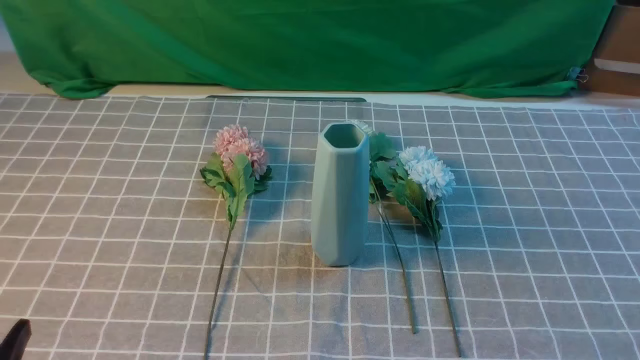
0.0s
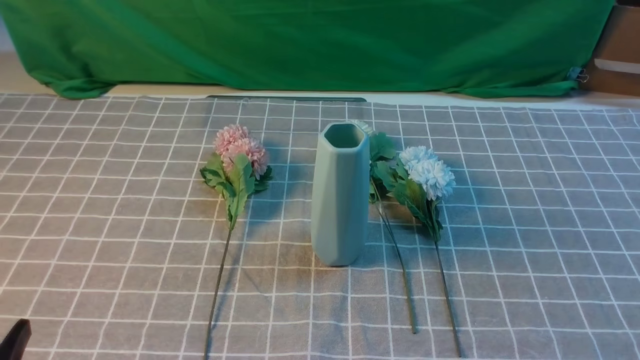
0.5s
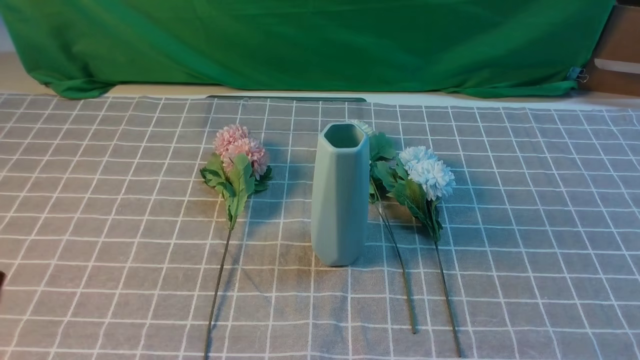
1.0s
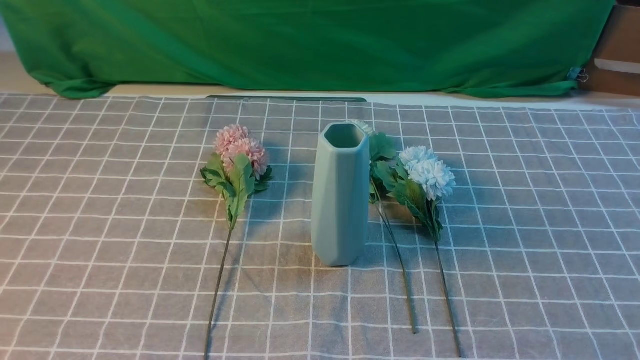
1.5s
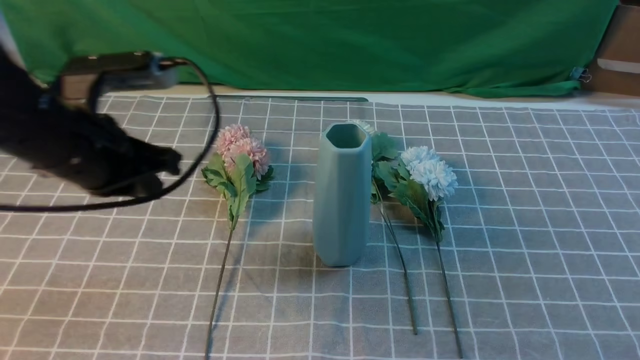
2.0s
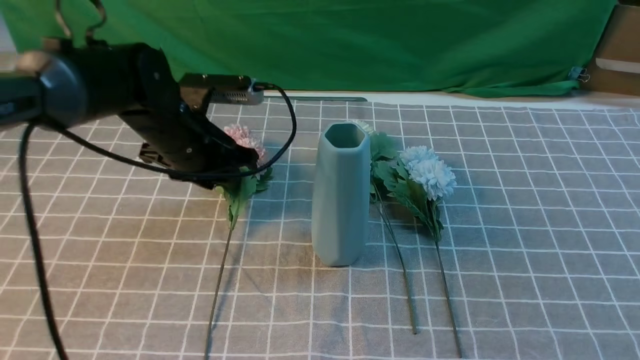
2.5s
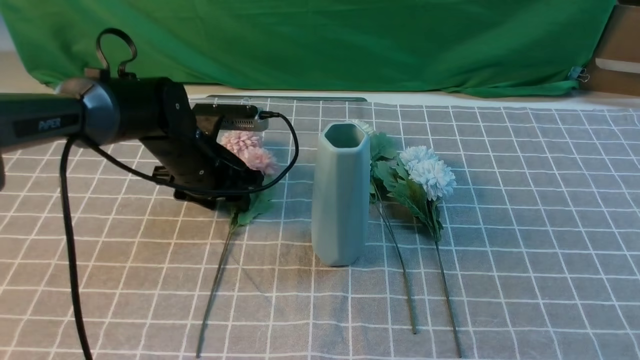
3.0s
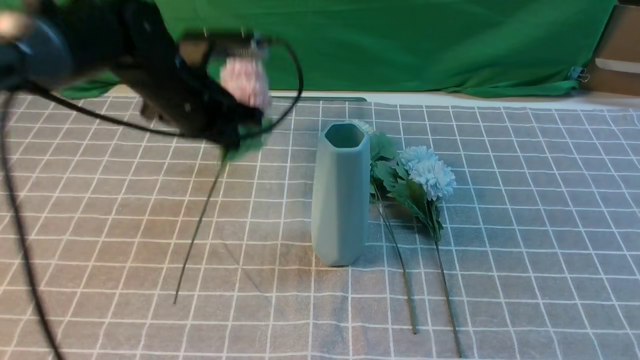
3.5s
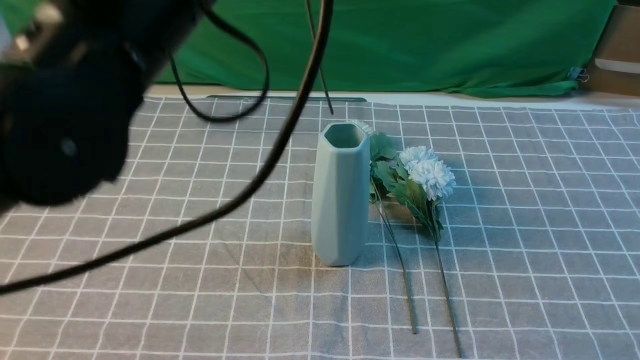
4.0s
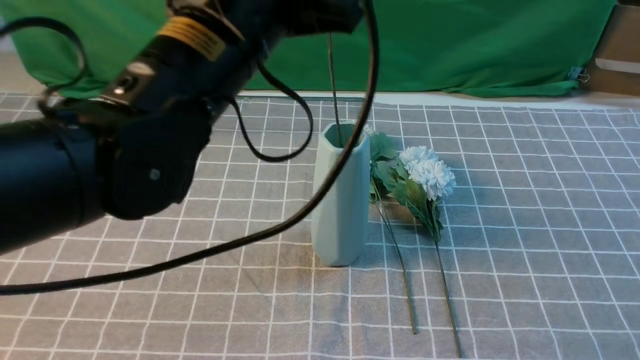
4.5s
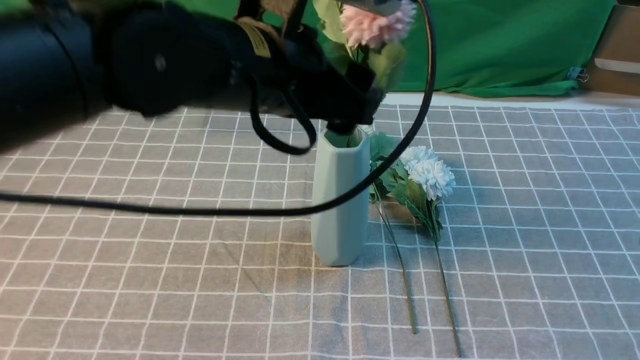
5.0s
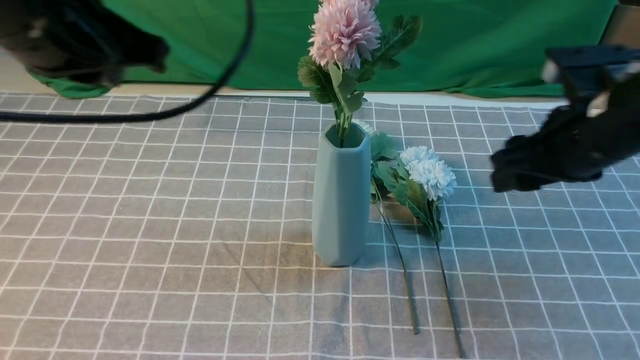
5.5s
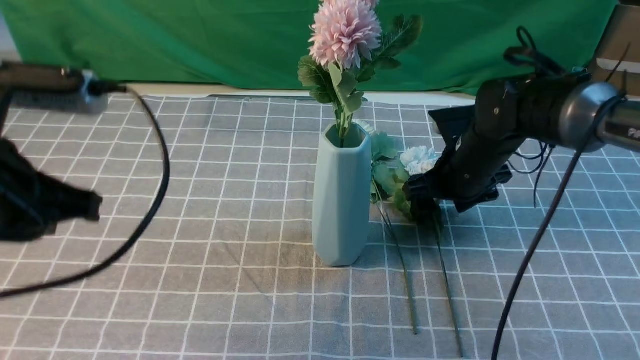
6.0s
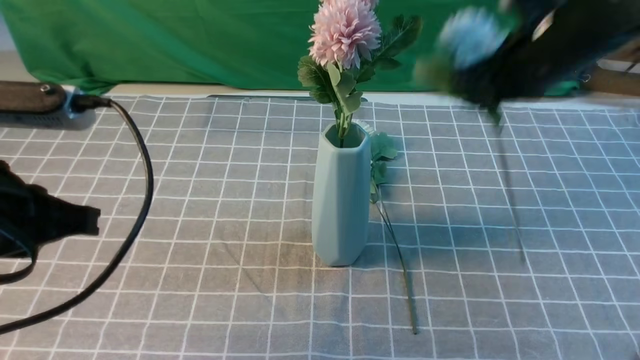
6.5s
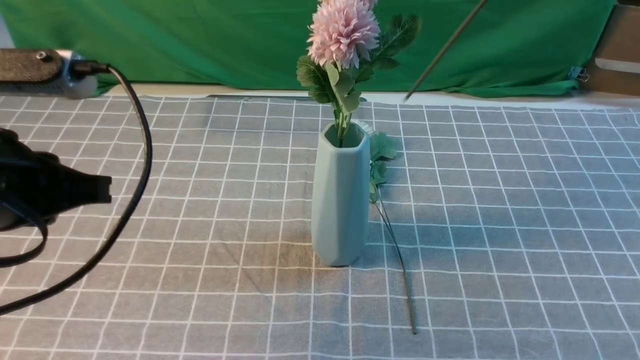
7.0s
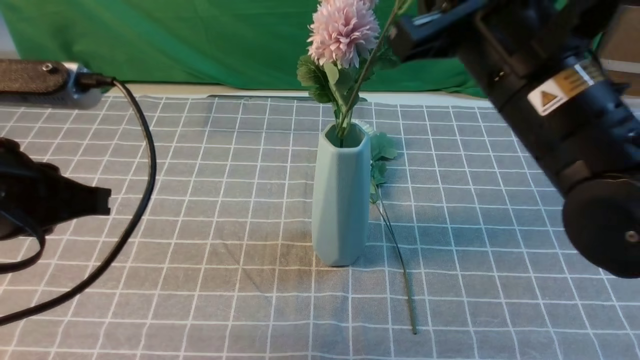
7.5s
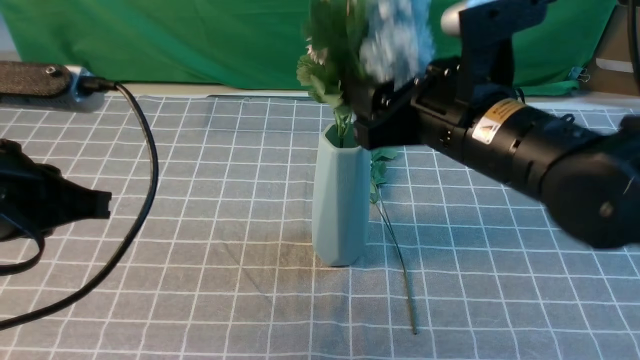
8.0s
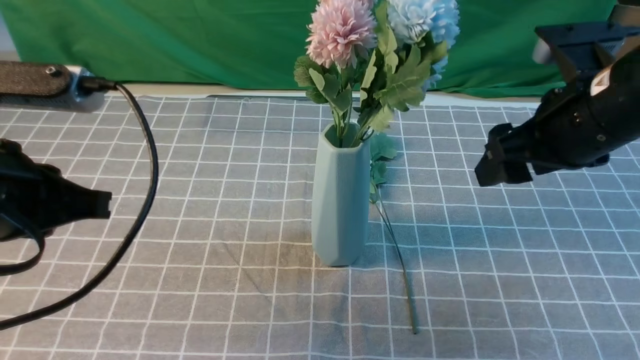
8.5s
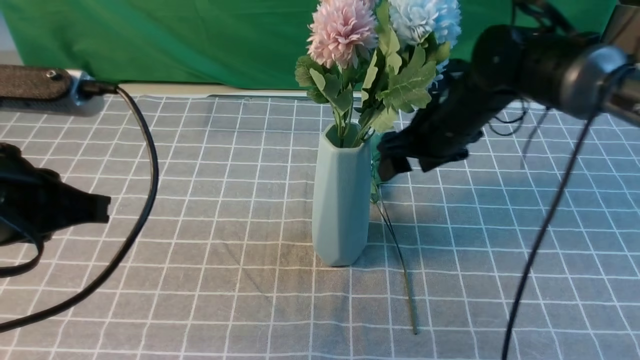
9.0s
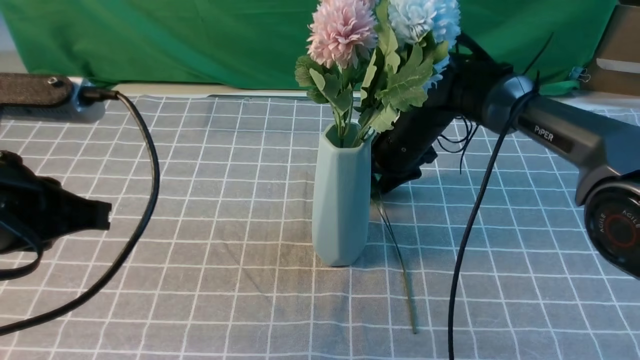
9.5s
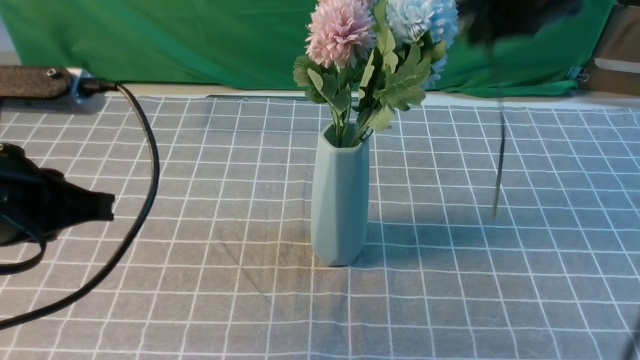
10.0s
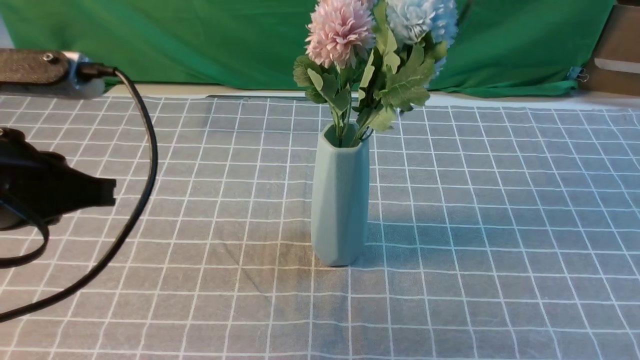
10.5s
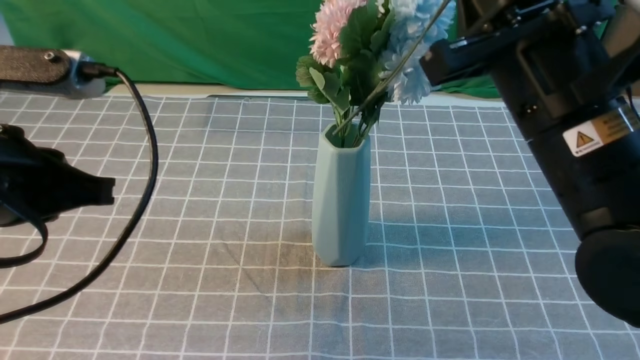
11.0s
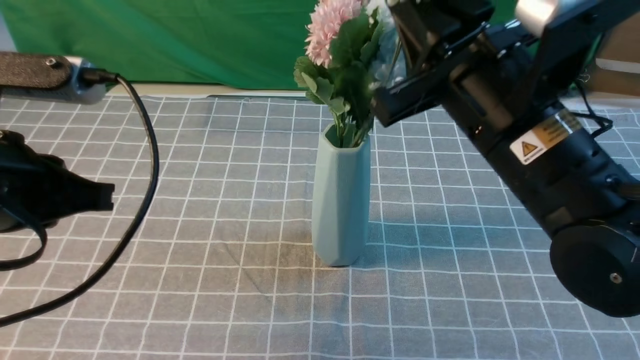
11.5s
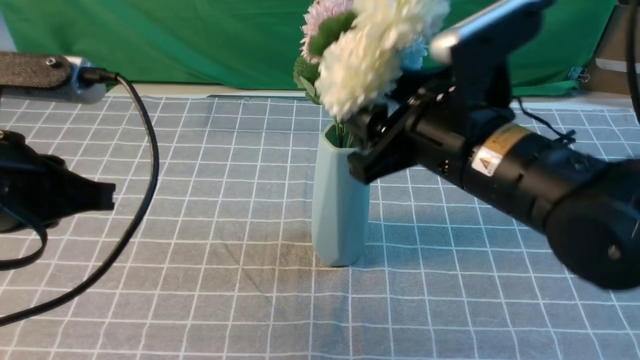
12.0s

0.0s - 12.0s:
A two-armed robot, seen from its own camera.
Task of the whole recording: insert the flowers into the vase on the table with the grey tablecloth.
Step, 0.0s - 3.0s: use the left arm to grab a bunch of fresh flowers.
Step, 3.5s - 5.0s: use the left arm to insert the flowers into the vase.
Step, 5.5s - 6.0s: use the right arm to grab a bunch of fresh flowers.
Step, 6.5s - 8.0s: use the right arm to insert the flowers into the vase.
Step, 8.5s - 9.5s: use the right arm to grab a bunch of fresh flowers.
0.0s - 2.0s: The left gripper travels forward and upward by roughly 25 cm, and closes its fingers, while the right gripper goes approximately 5 cm upward.
2.0s - 4.0s: The left gripper shifts about 15 cm upward and to the right, and opens, then closes again; the right gripper is displaced upward and forward by roughly 10 cm.
4.0s - 6.0s: The right gripper moves forward, downward and to the left, about 35 cm, and opens; the left gripper goes approximately 15 cm to the left, downward and backward, and opens, then closes again.
6.0s - 8.0s: The right gripper is displaced upward and backward by about 20 cm, and closes, then reopens.
8.0s - 10.0s: The right gripper is displaced forward and to the right by roughly 15 cm, moves approximately 15 cm downward and comes back, and closes.
10.0s - 12.0s: The right gripper is displaced backward, to the left and downward by approximately 20 cm, and opens up.

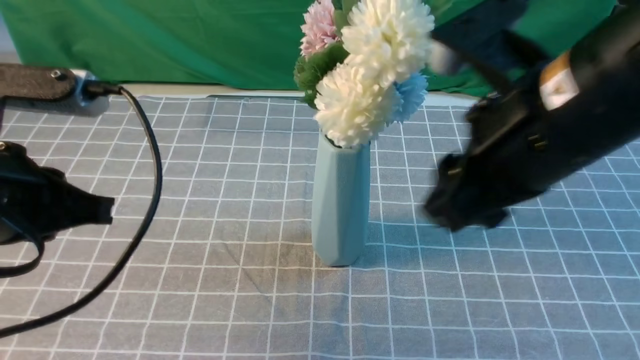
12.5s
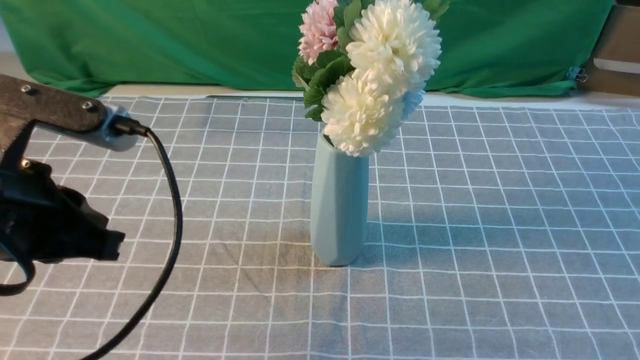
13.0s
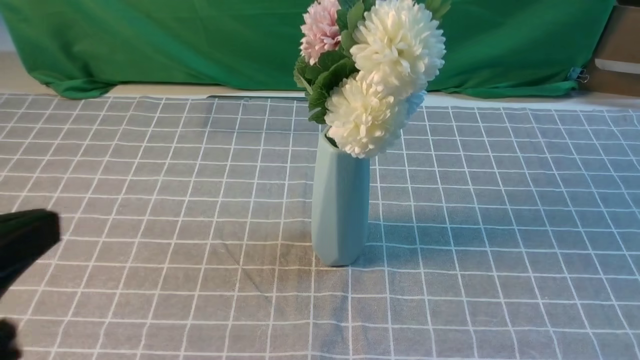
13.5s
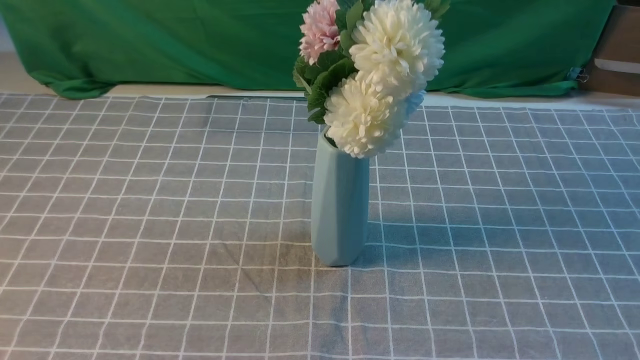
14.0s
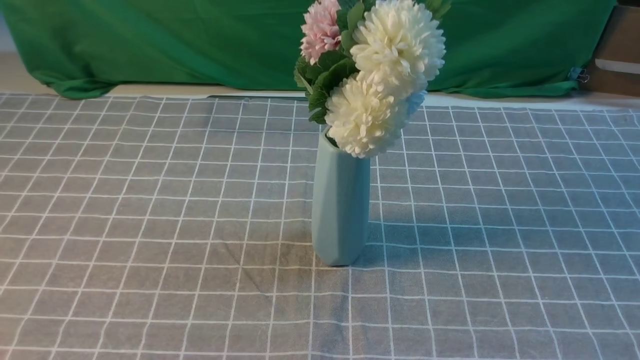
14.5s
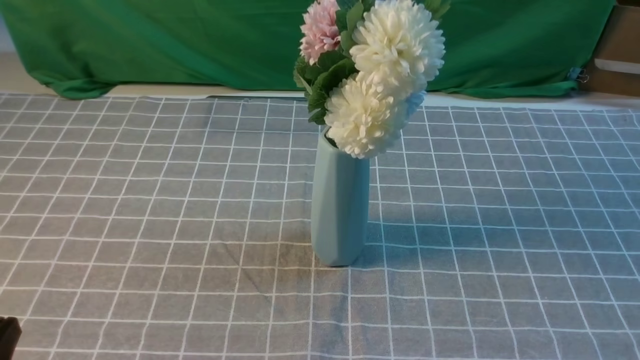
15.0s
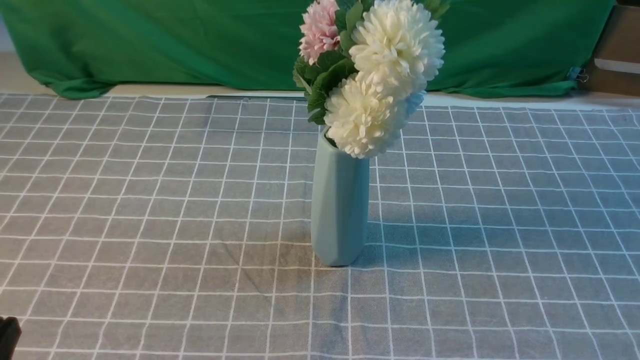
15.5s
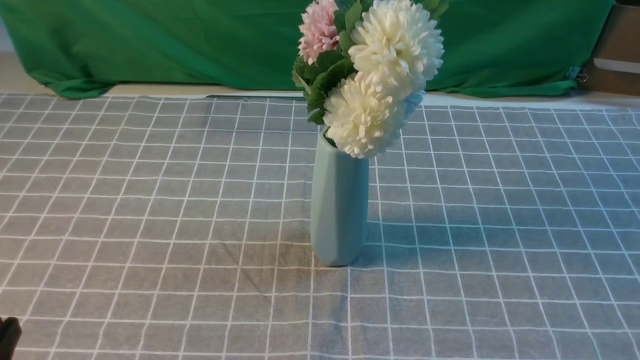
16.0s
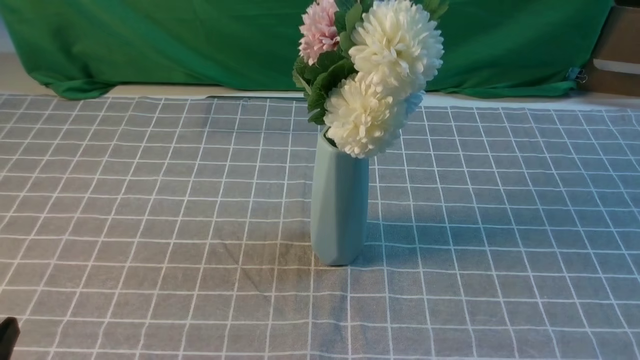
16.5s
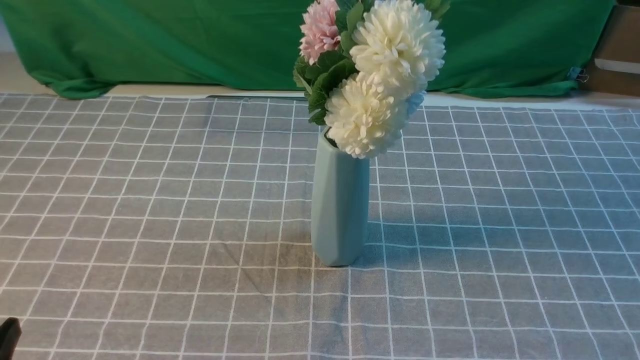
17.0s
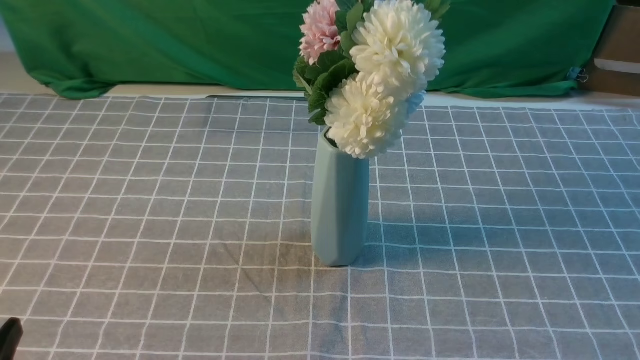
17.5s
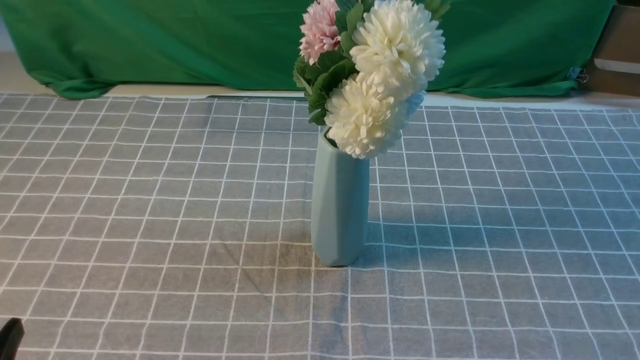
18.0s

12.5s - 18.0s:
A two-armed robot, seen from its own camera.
Task of the whole recording: insert the flowers into the vase on the table with the grey tablecloth.
12.5s - 14.5s: The left gripper shifts some 15 cm backward. The right gripper goes approximately 25 cm backward, to the right and downward.
14.5s - 16.0s: The left gripper travels downward by roughly 10 cm.

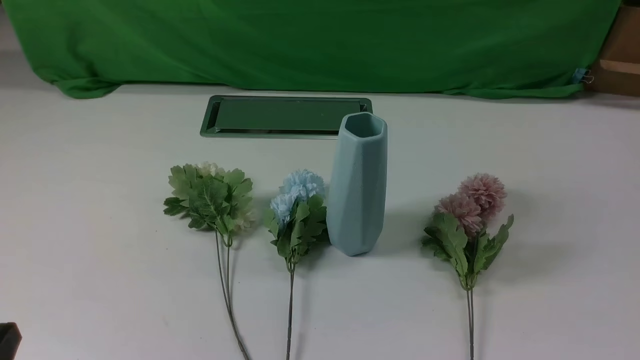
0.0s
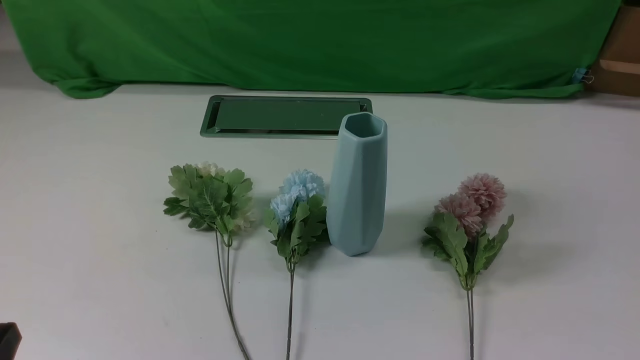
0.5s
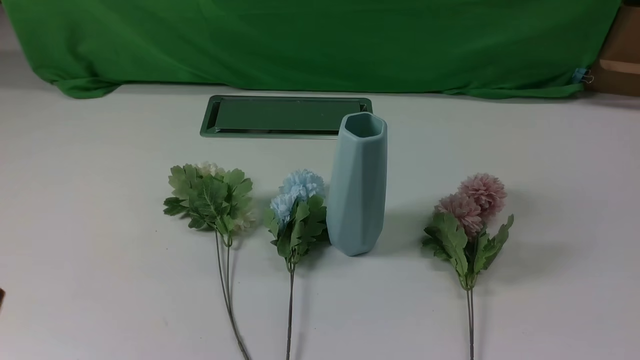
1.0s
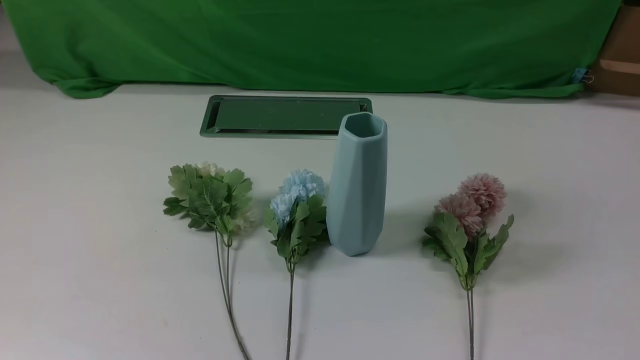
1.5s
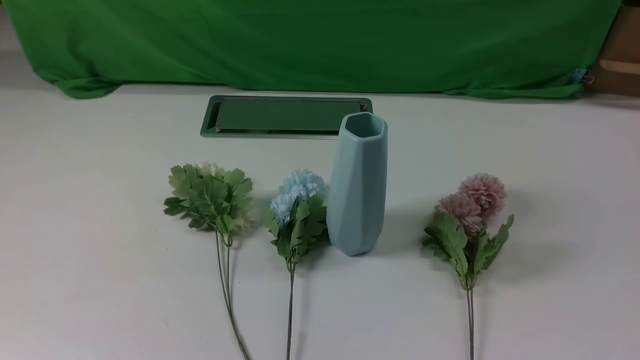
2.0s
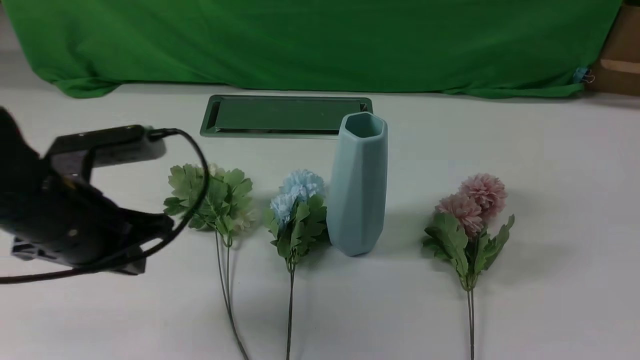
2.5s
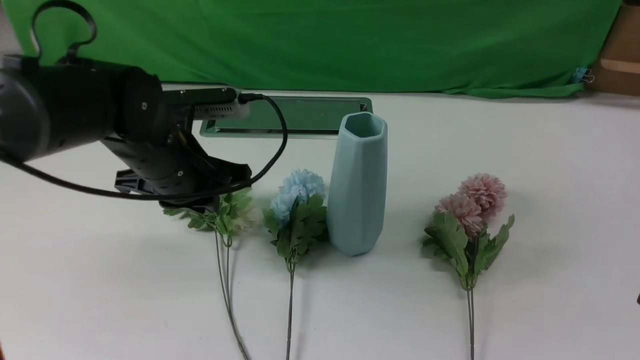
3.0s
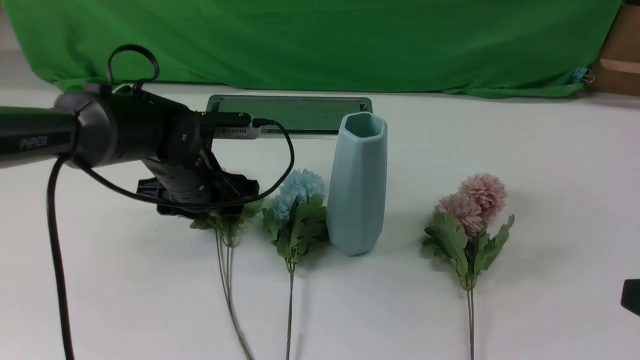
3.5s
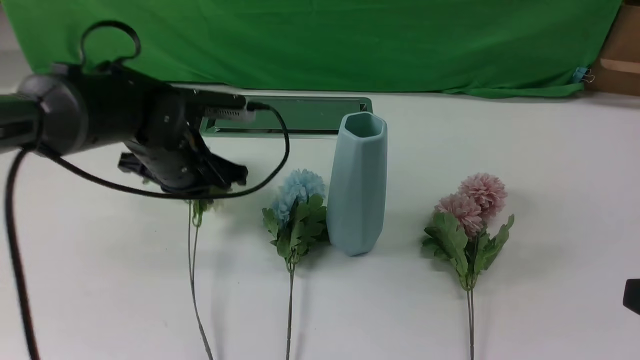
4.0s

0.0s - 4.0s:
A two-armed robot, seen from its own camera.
Task of the whole recording: insert the flowers into the vase on the white table.
Step, 0.0s - 3.5s: use the left arm to grab a bunch of fresh flowers.
2.0s - 4.0s: The left gripper goes approximately 25 cm forward, and opens and closes again. Meanwhile the right gripper shifts approximately 10 cm upward.
